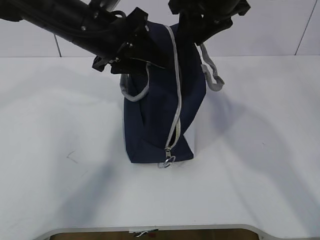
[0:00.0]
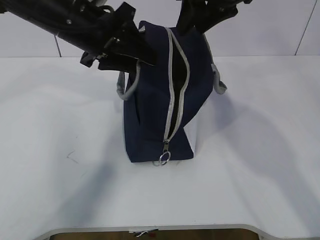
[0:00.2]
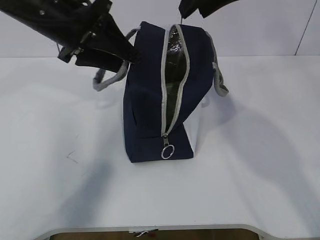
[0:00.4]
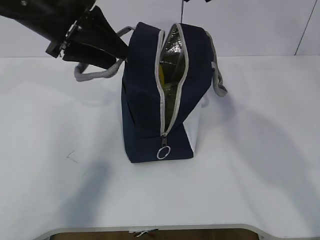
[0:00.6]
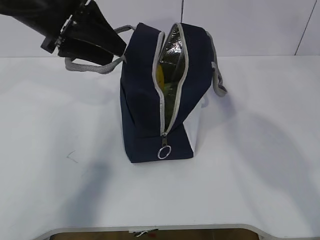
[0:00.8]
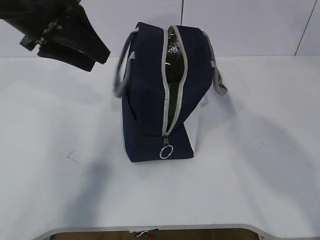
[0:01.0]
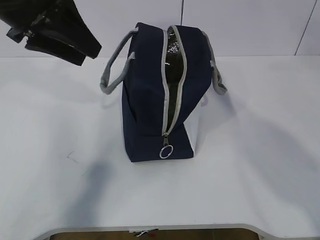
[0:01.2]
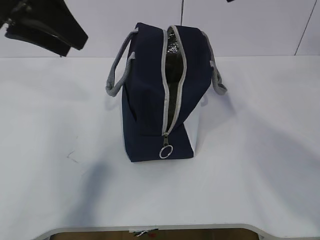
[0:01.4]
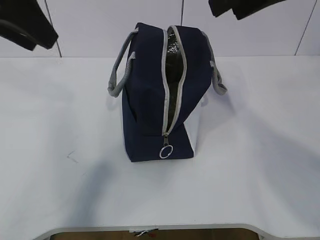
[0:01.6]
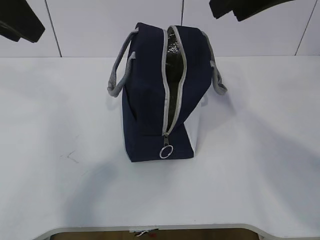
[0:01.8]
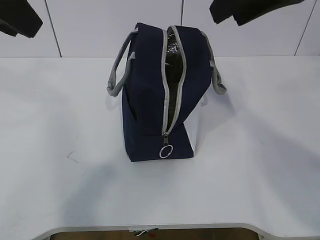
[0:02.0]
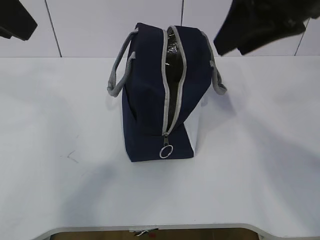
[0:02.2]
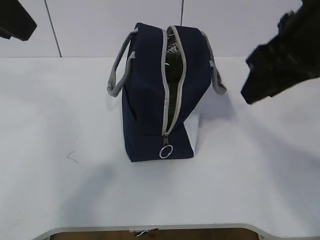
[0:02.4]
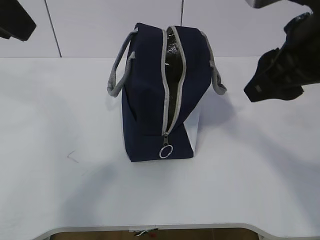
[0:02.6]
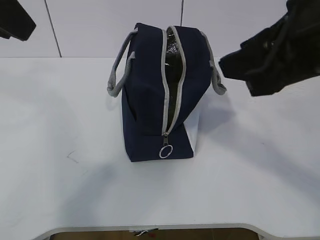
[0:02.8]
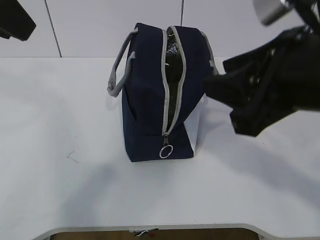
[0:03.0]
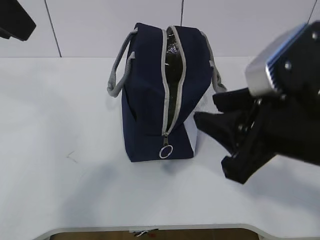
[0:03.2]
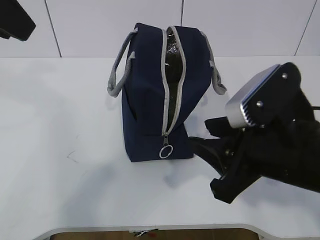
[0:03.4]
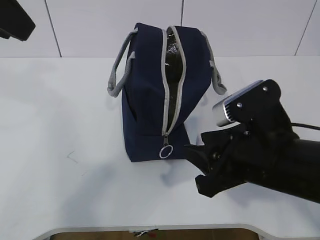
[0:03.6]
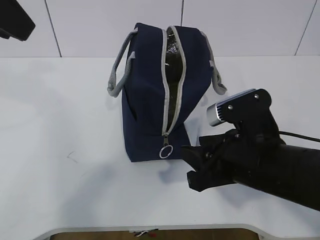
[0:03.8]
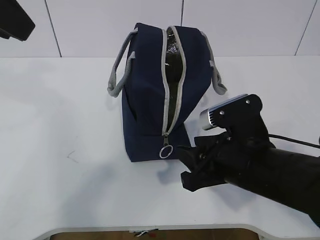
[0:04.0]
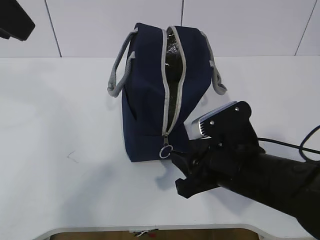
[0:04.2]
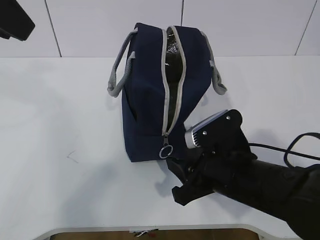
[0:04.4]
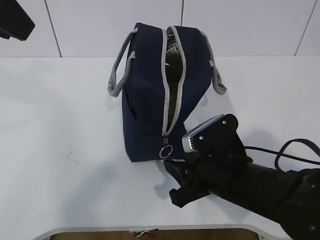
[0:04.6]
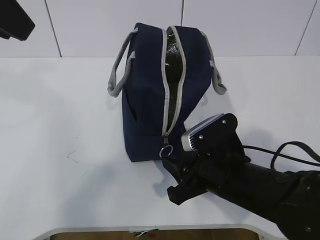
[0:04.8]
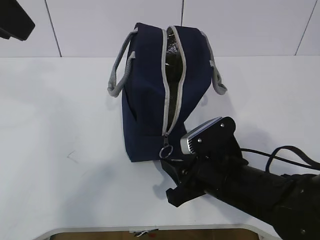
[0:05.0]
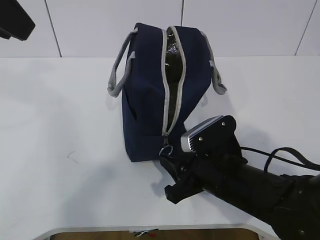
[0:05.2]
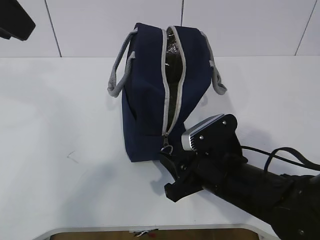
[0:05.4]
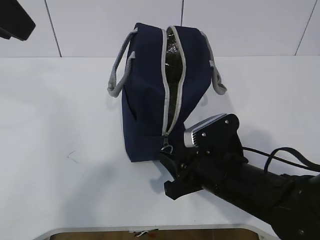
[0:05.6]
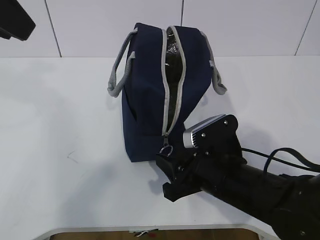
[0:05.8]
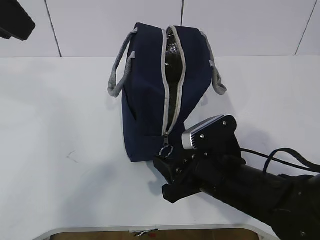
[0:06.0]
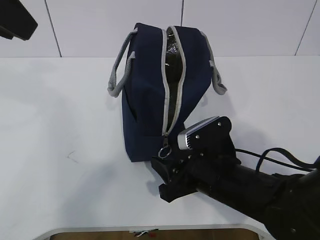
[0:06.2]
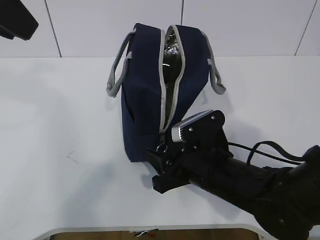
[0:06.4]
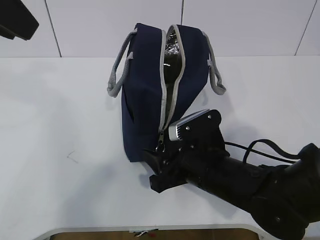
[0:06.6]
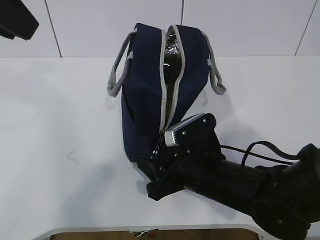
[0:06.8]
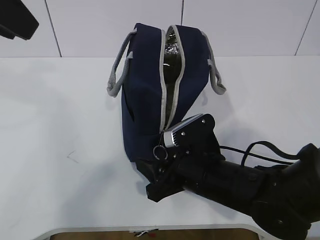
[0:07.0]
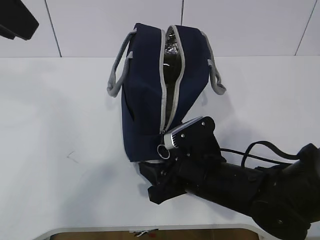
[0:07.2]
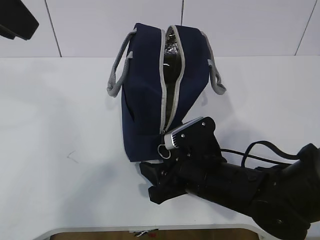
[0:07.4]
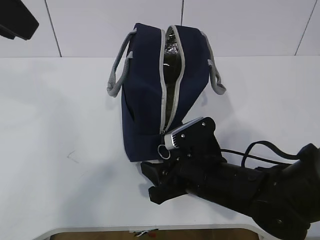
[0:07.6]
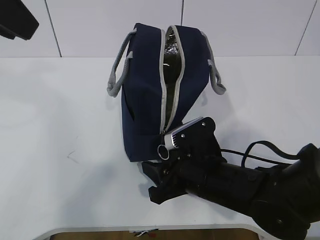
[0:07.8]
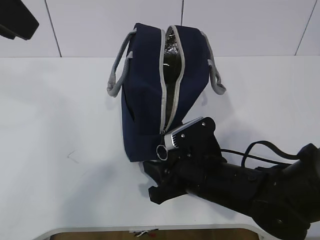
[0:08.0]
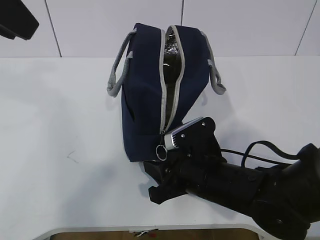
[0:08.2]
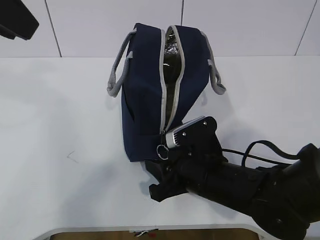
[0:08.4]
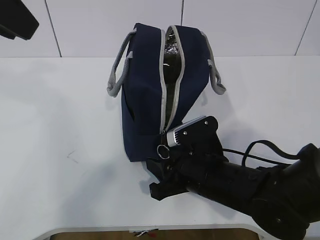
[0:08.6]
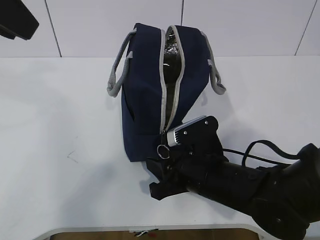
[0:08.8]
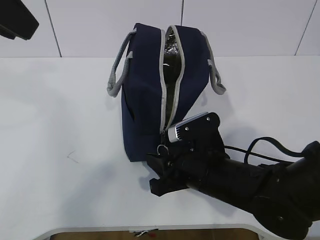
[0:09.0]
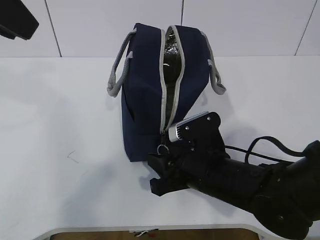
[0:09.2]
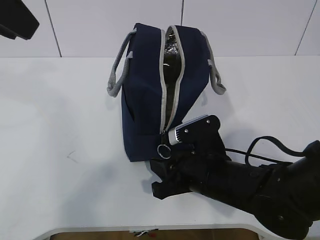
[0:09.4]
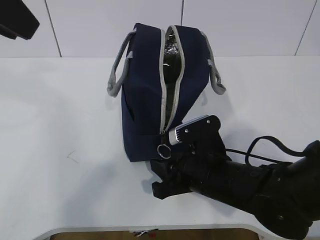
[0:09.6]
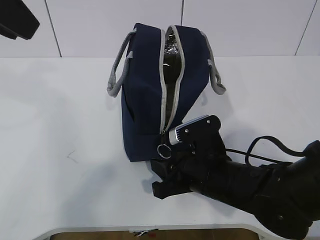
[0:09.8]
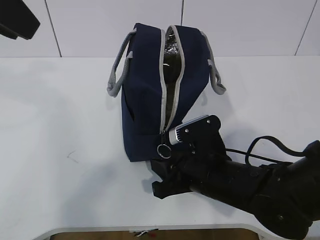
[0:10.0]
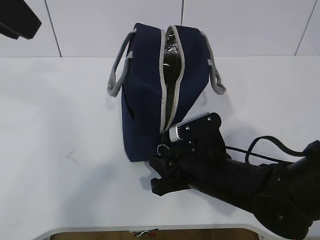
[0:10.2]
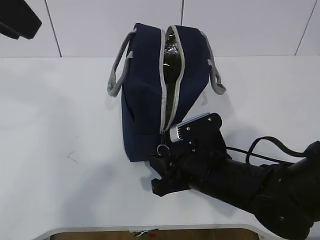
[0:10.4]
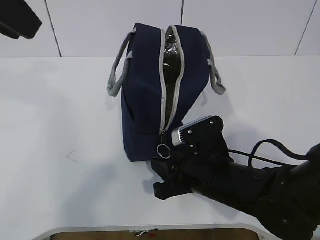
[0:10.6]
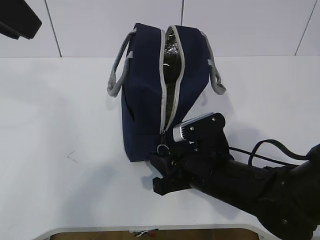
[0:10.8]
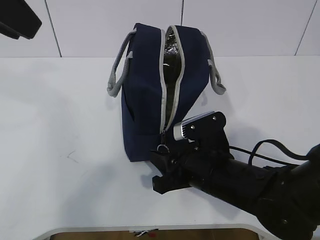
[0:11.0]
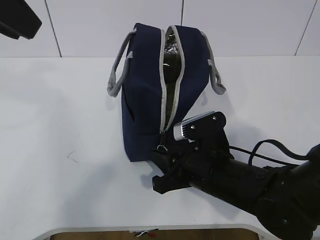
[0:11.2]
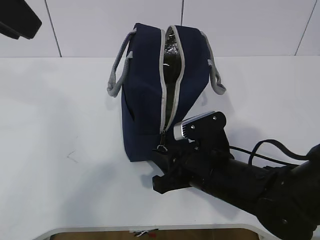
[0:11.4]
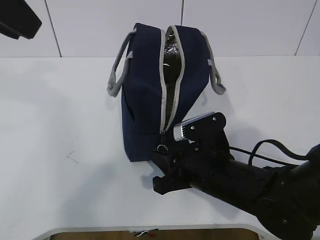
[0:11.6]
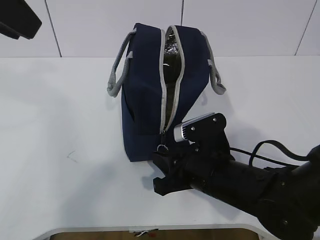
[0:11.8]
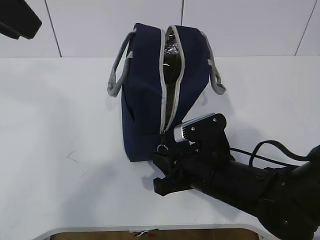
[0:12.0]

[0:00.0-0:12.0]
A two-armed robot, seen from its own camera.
0:00.0 to 0:01.6: The left gripper shifts some 15 cm upward, to the left and backward; the right gripper is displaced backward and upward by some 15 cm.
0:01.6 to 0:03.0: The right gripper moves downward and backward, approximately 15 cm; the left gripper travels backward by roughly 5 cm.
0:03.0 to 0:04.4: The right gripper goes approximately 20 cm downward.
0:04.4 to 0:07.6: The grippers stay close to where they were, moving slightly.
0:07.6 to 0:09.0: Both grippers stay about where they are.
0:09.0 to 0:12.0: Both grippers stay put.

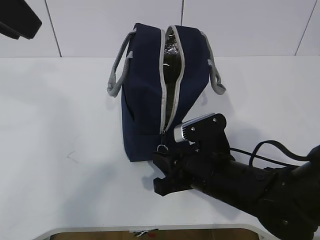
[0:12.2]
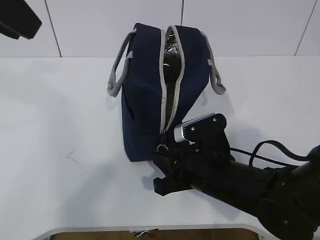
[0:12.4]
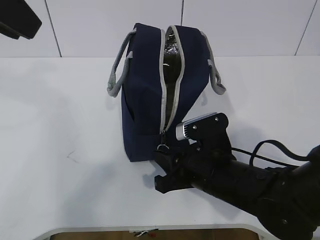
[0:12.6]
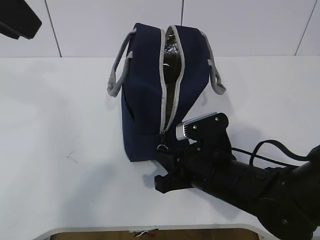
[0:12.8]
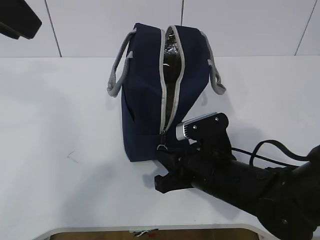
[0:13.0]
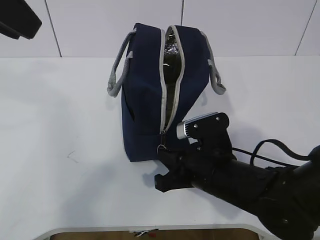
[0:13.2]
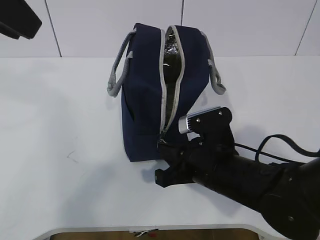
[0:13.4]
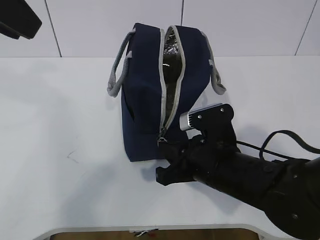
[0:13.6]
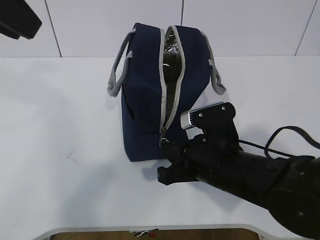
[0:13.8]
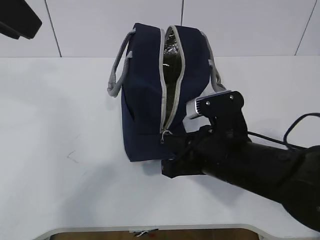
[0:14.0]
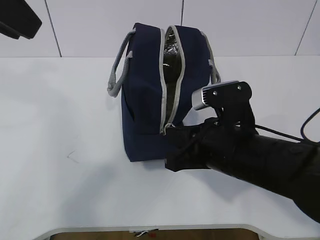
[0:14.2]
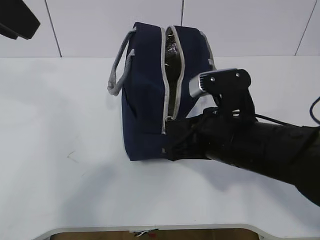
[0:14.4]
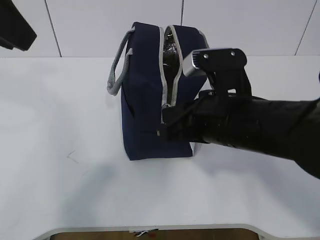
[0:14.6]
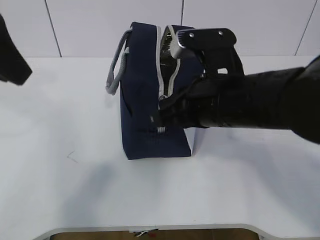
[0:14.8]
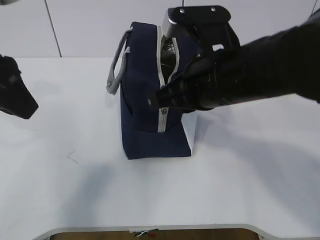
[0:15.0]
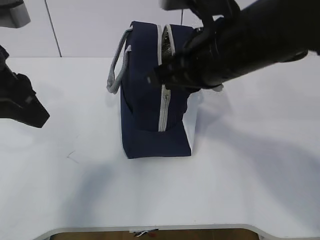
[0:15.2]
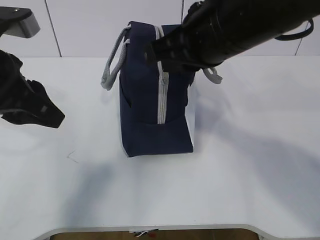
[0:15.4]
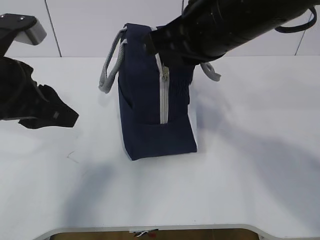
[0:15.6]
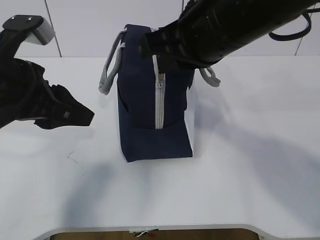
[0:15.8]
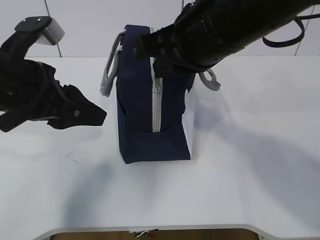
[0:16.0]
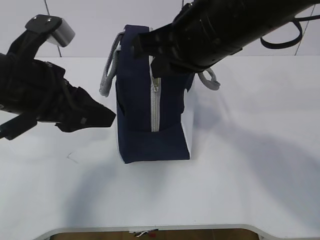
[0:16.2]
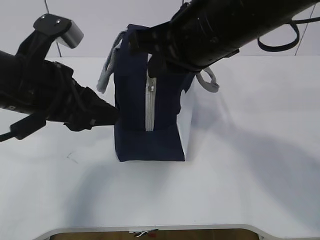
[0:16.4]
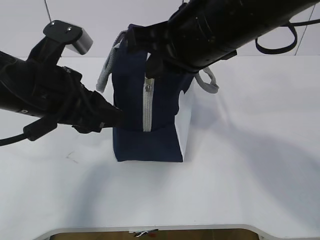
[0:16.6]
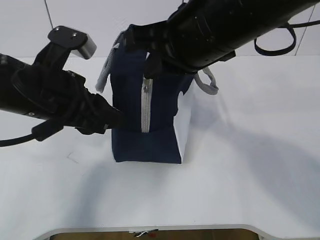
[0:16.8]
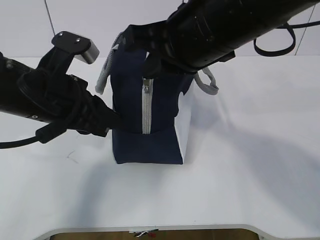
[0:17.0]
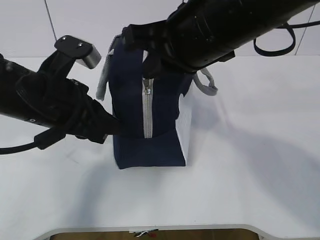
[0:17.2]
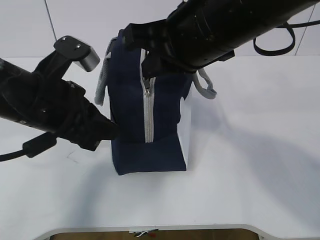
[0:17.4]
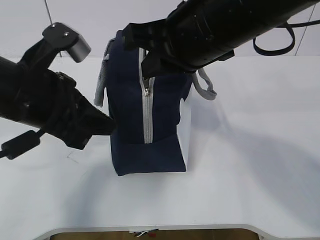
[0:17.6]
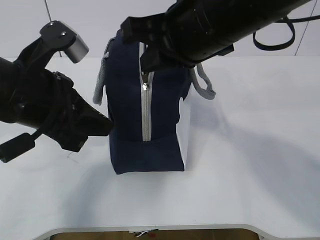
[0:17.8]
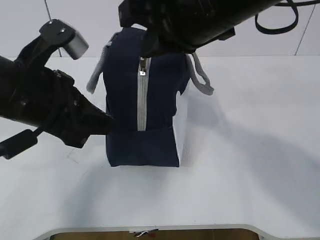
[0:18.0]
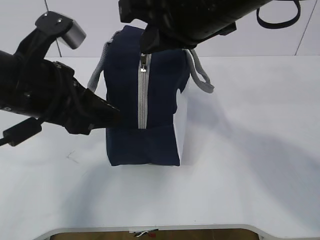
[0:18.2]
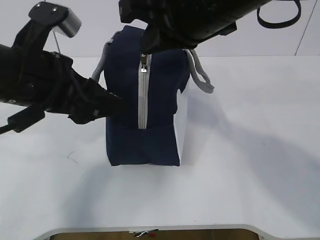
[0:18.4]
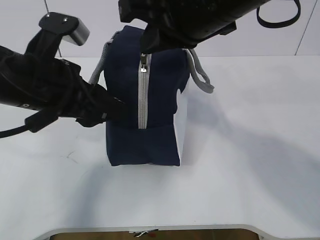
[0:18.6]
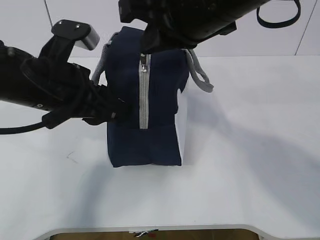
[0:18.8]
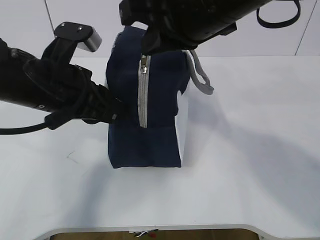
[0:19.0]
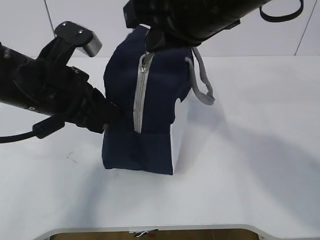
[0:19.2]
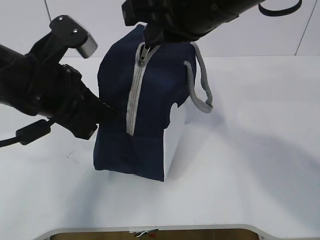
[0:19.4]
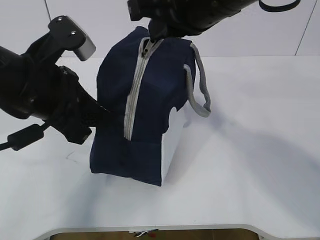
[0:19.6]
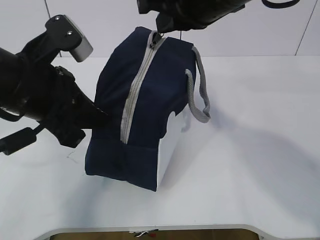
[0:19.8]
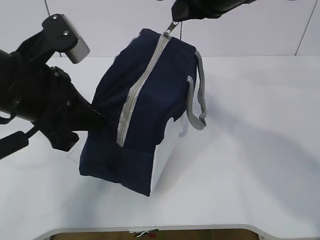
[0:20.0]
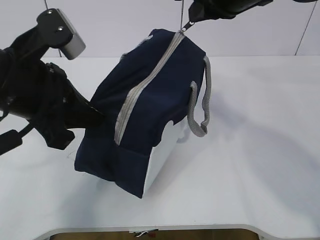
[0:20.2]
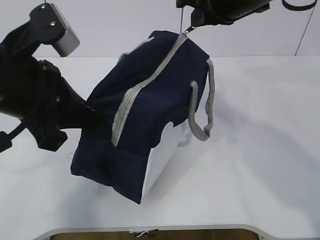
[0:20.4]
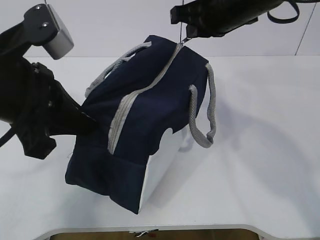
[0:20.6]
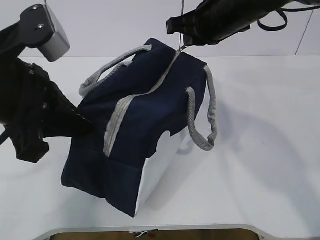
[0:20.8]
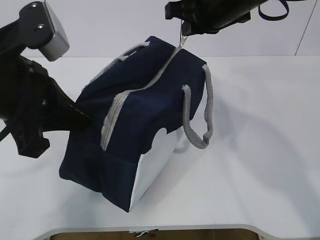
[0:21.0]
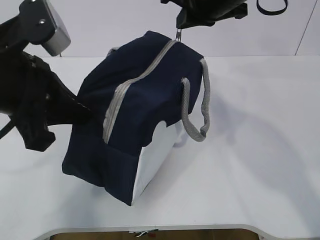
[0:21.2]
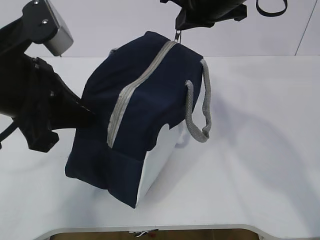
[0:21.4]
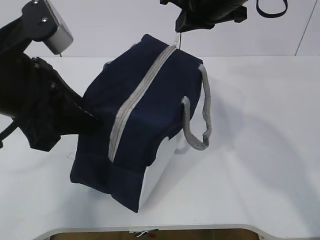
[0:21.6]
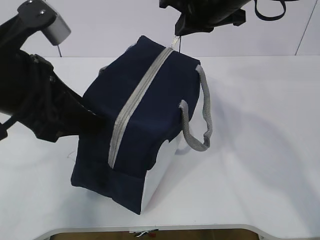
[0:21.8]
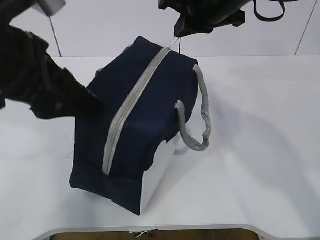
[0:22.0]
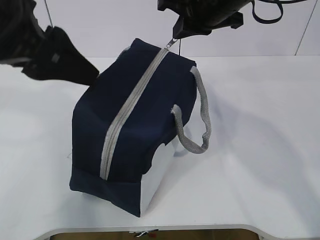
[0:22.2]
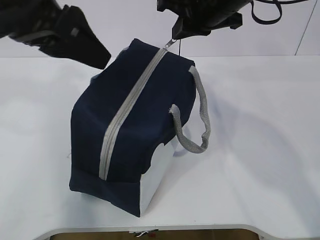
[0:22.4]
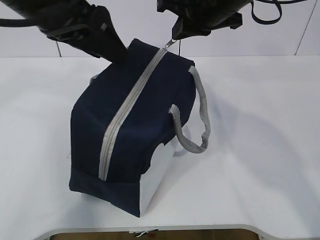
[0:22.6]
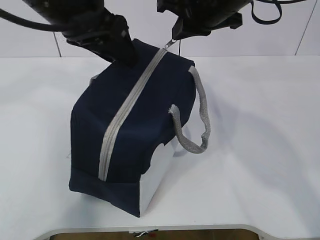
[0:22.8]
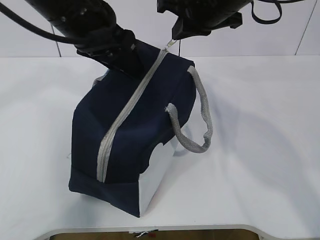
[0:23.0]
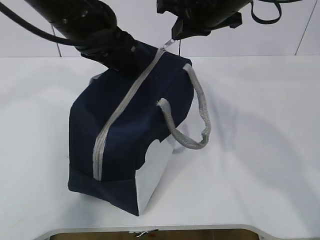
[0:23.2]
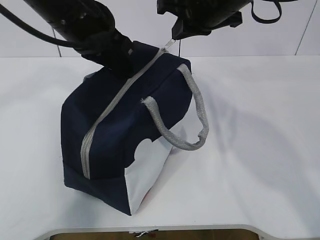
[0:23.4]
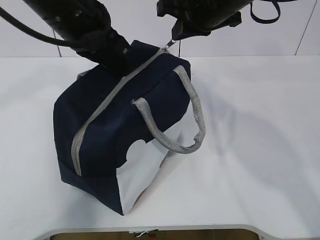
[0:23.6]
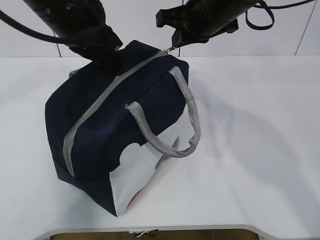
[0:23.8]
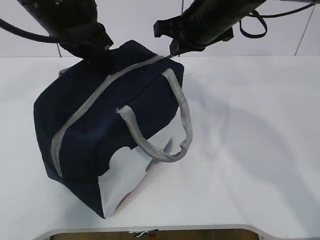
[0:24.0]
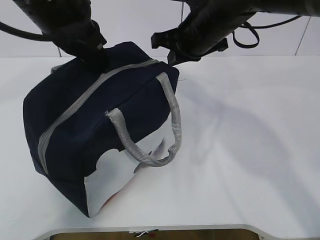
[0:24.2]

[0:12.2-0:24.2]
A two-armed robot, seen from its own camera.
0:12.2 to 0:13.8: The right gripper closes its fingers.
0:13.8 to 0:15.2: The left gripper travels downward by roughly 10 cm. Meanwhile the right gripper travels upward by roughly 15 cm.
0:15.2 to 0:16.6: The left gripper goes roughly 10 cm downward and to the right.
0:16.6 to 0:18.2: The left gripper closes, then opens again.
0:18.2 to 0:19.8: The left gripper closes up.
0:19.8 to 0:21.2: The right gripper moves forward, some 10 cm.
0:21.2 to 0:22.6: The left gripper is displaced upward and forward by about 10 cm, and opens.
0:22.6 to 0:24.2: The right gripper goes roughly 5 cm downward. Meanwhile the left gripper closes up.
